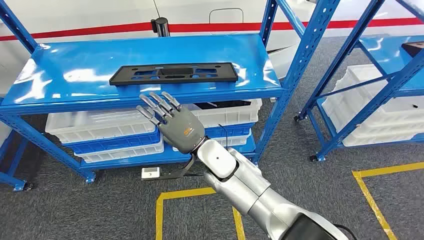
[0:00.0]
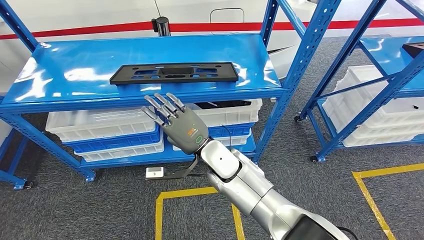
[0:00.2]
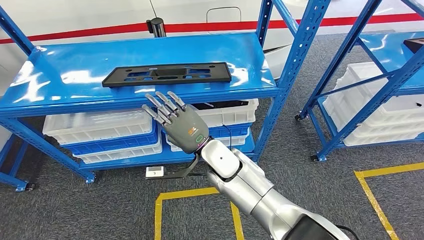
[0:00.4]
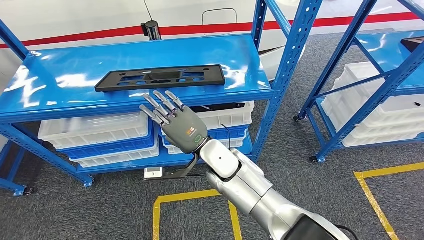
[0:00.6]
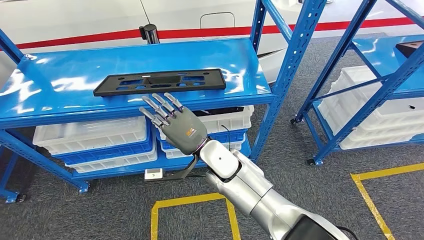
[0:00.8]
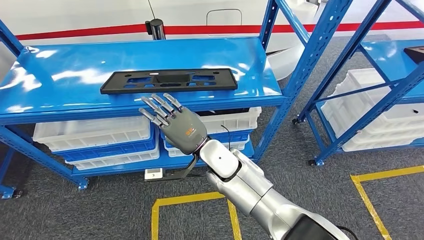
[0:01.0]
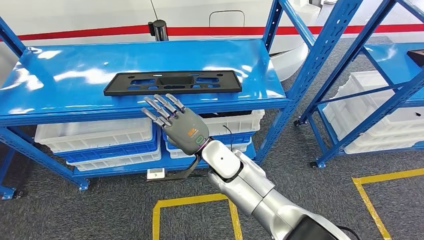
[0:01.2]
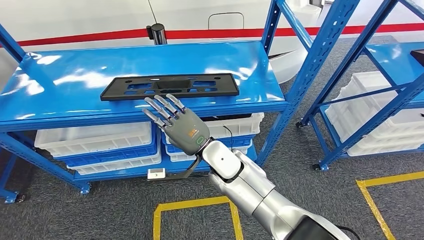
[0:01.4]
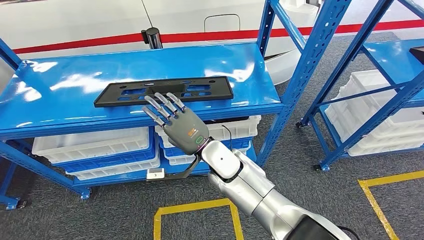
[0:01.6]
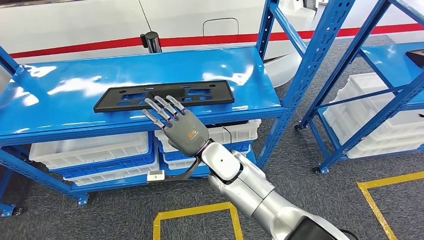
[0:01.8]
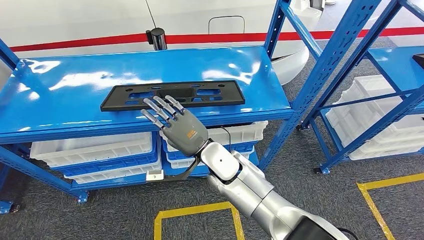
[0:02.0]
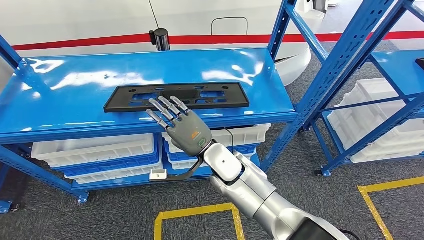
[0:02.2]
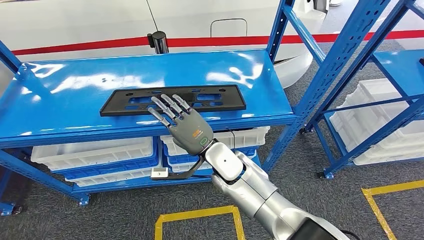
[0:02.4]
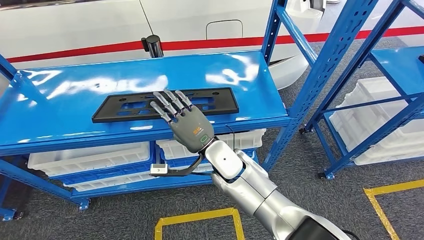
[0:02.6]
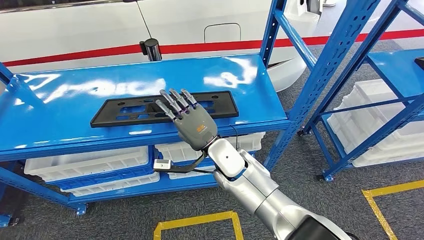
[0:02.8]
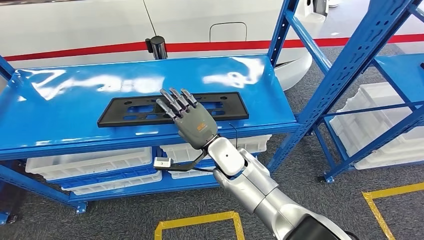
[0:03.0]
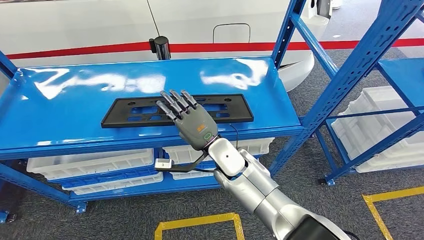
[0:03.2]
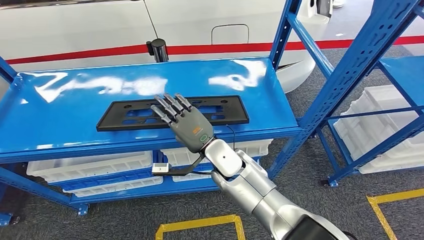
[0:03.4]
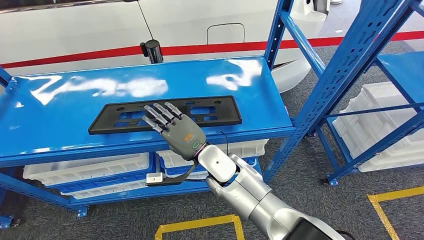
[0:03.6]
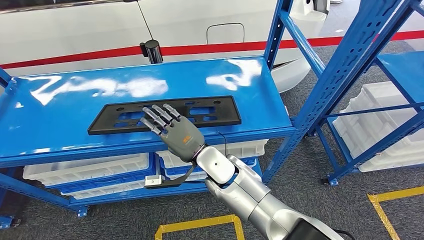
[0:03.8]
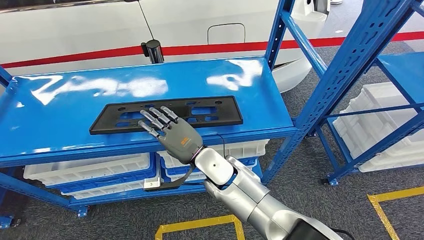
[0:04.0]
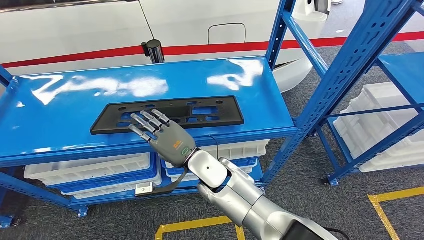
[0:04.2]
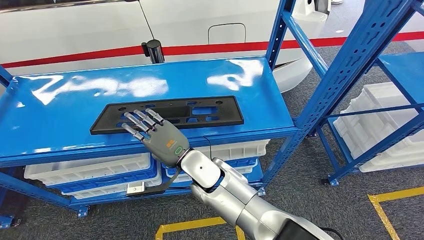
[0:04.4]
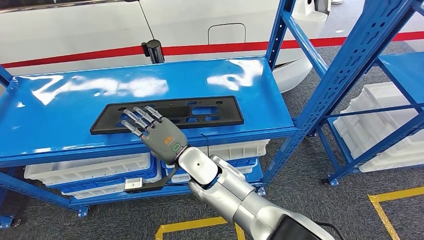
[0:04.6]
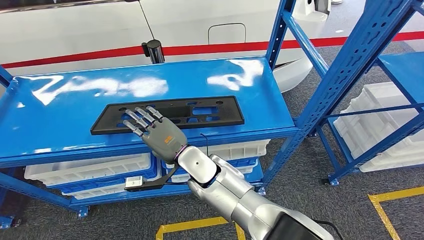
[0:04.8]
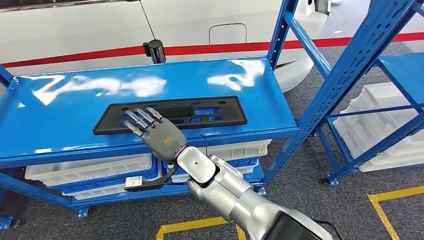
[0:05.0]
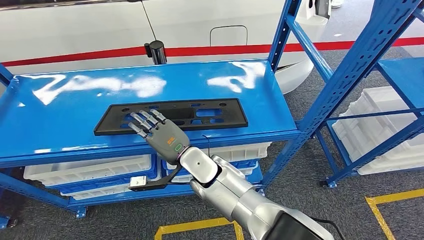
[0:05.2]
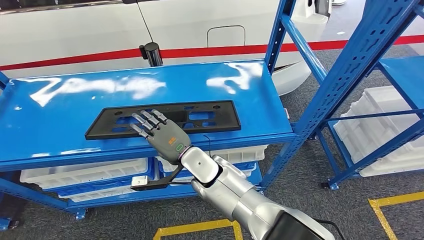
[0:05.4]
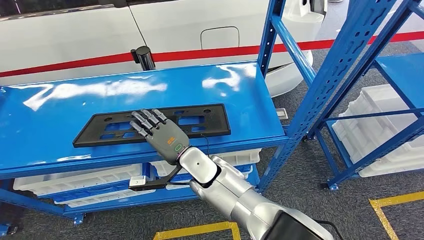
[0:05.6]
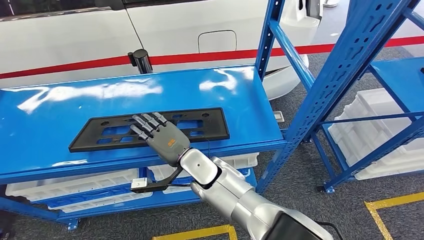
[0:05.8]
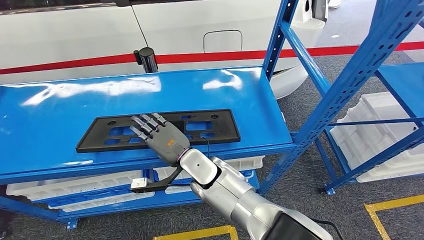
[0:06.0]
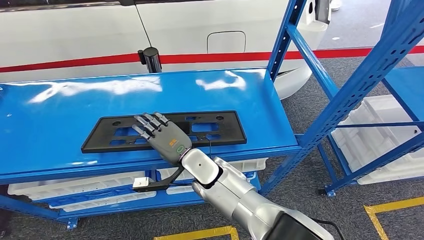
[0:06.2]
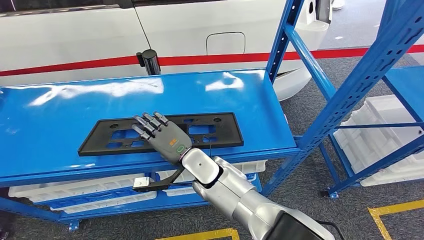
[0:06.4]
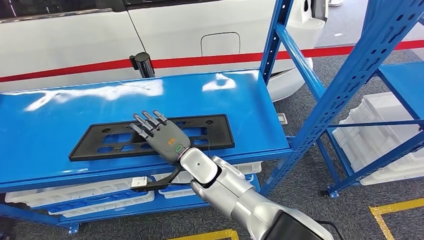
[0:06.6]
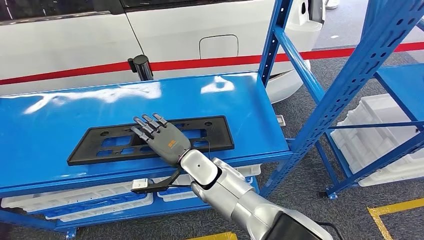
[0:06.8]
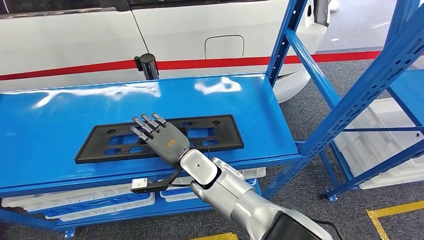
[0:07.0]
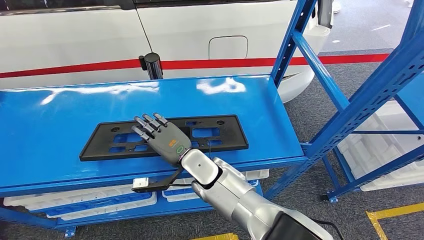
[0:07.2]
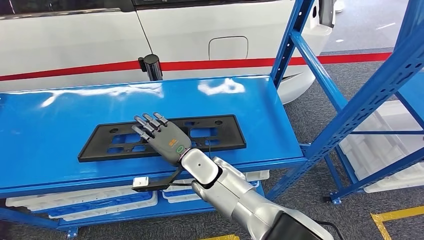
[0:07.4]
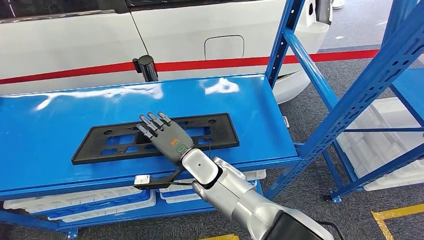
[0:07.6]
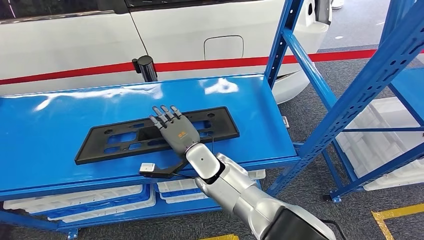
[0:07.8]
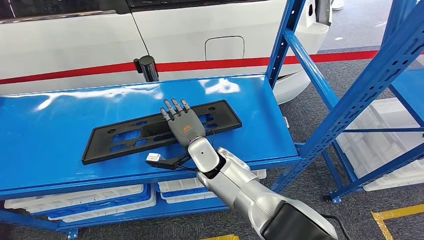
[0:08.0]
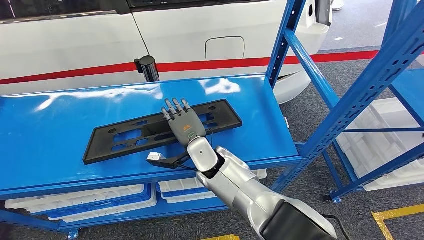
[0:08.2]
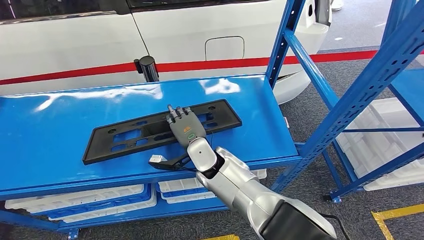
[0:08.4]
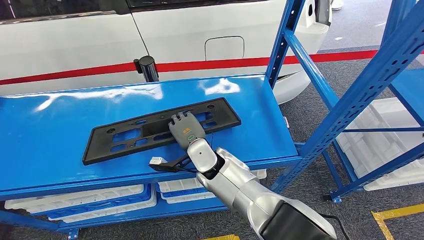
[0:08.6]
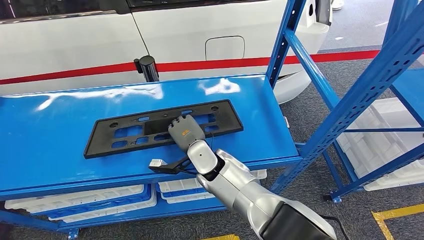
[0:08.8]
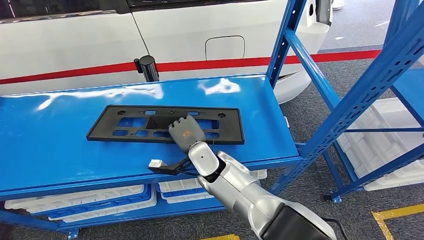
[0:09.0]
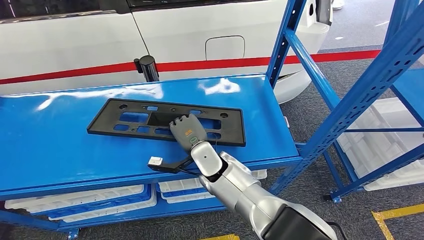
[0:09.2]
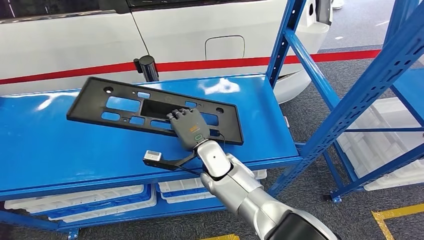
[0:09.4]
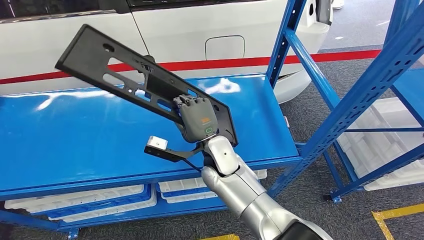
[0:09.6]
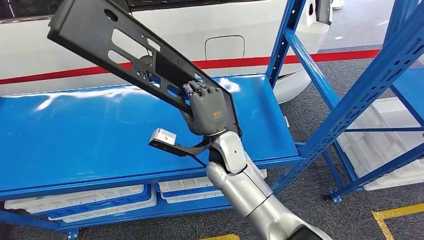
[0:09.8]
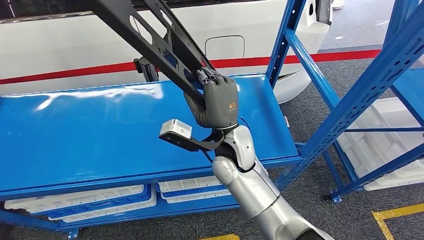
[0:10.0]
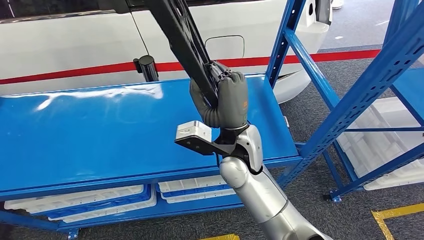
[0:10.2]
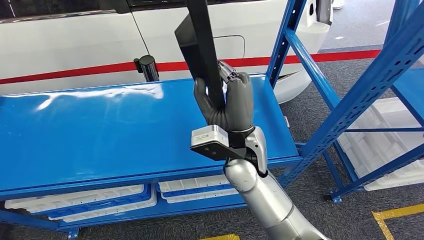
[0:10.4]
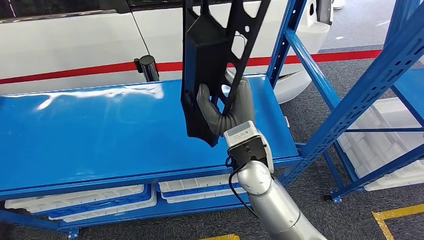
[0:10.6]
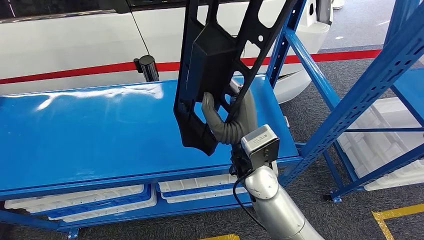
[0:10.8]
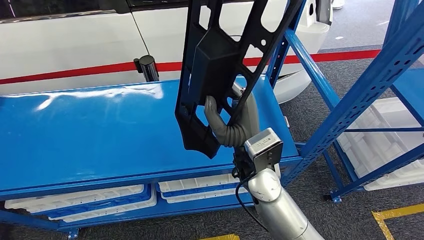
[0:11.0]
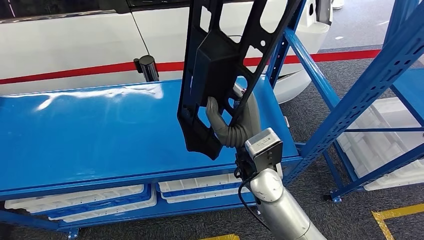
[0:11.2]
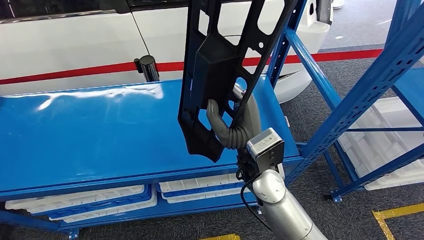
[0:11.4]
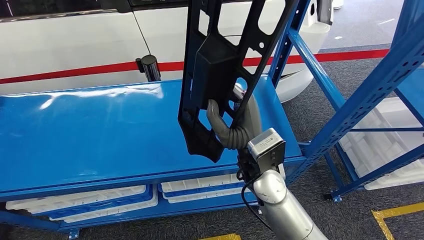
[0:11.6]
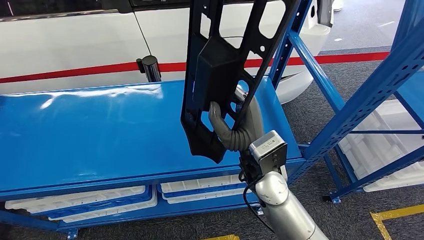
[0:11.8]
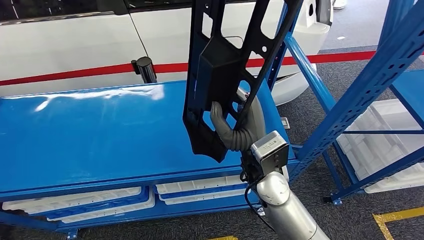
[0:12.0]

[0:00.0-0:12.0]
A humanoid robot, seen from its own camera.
Step, 0:00.0 to 0:09.6: Pick up the large material from the shelf.
0:09.0 to 0:10.4: The right hand moves upward and to the right, some 15 cm.

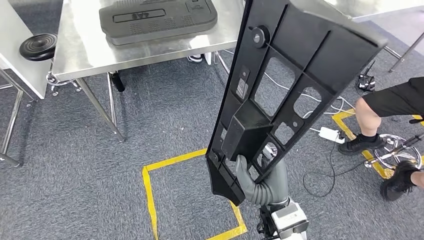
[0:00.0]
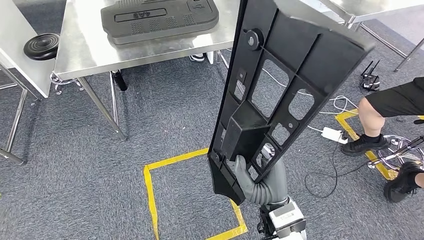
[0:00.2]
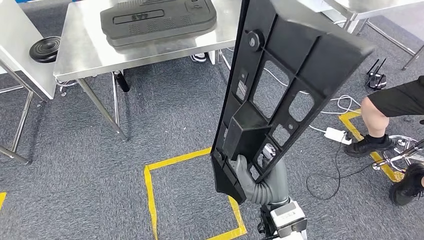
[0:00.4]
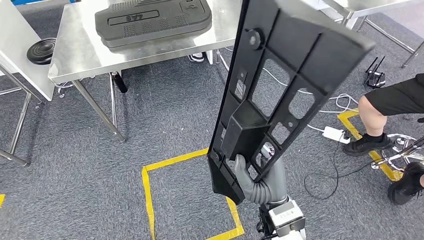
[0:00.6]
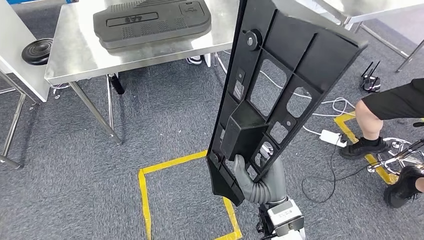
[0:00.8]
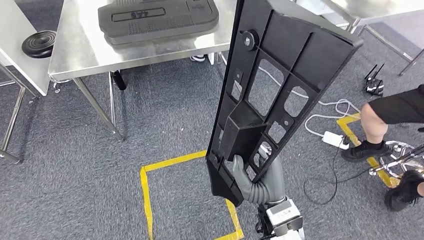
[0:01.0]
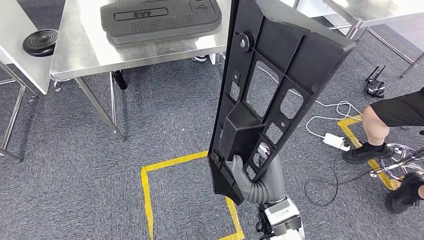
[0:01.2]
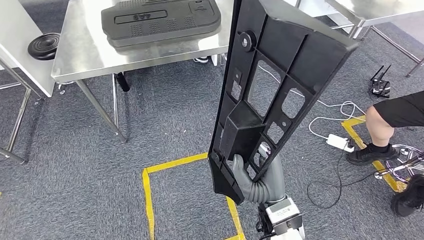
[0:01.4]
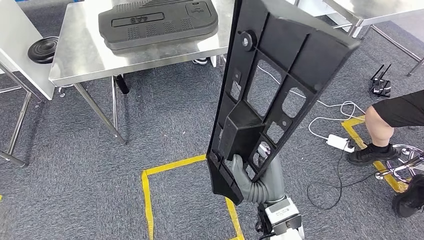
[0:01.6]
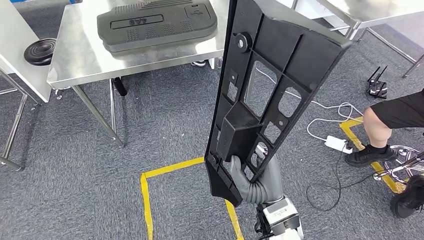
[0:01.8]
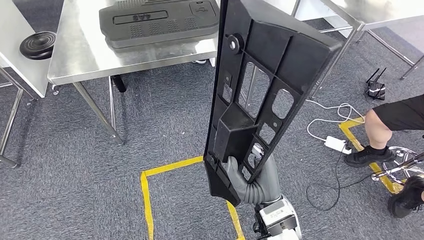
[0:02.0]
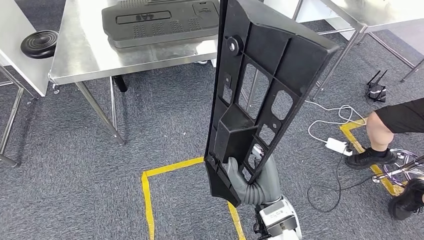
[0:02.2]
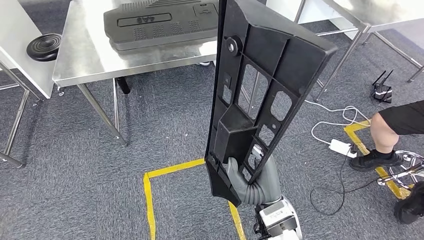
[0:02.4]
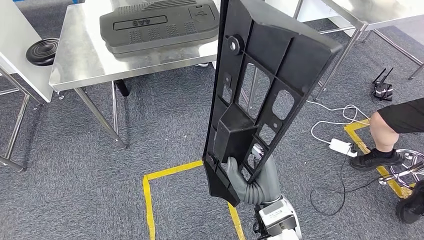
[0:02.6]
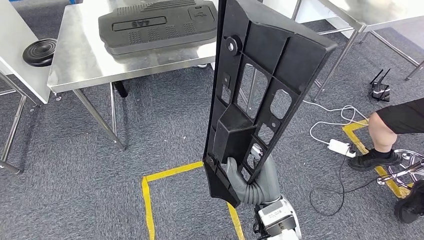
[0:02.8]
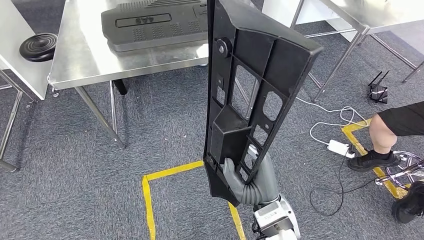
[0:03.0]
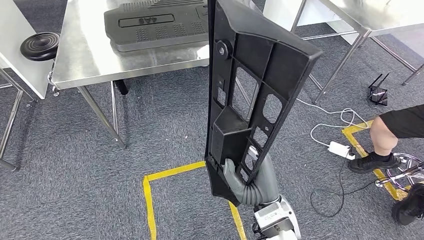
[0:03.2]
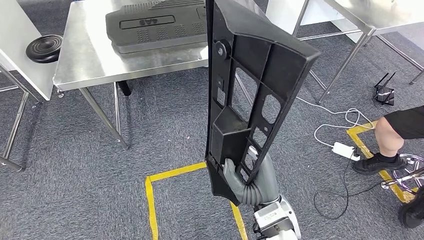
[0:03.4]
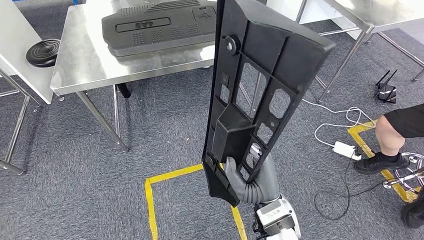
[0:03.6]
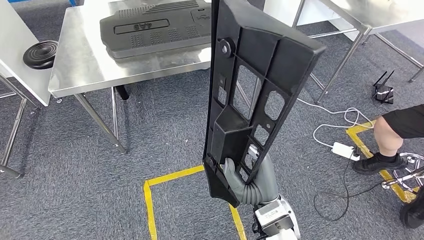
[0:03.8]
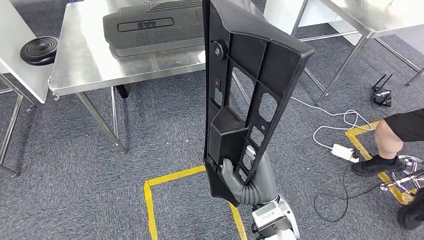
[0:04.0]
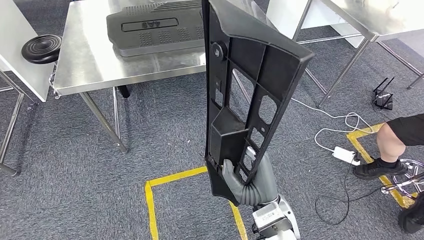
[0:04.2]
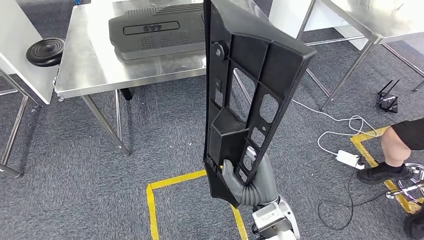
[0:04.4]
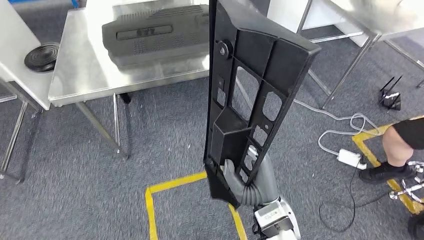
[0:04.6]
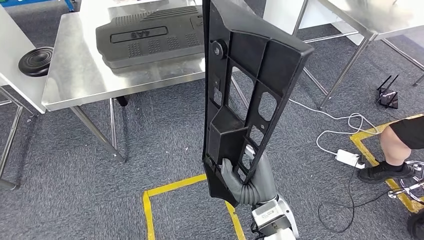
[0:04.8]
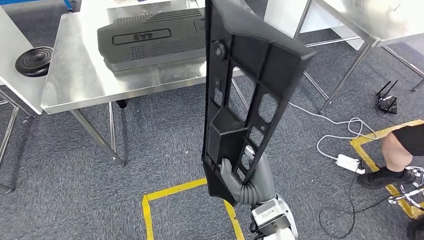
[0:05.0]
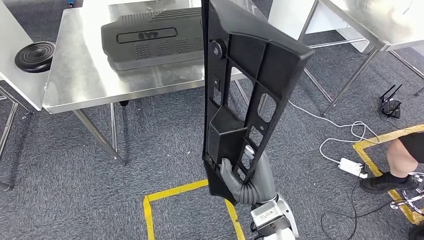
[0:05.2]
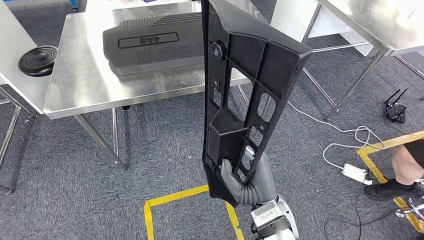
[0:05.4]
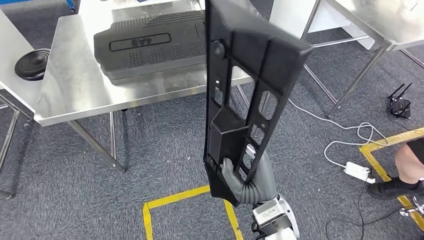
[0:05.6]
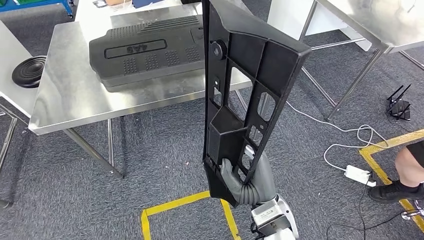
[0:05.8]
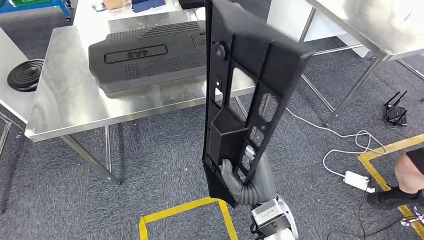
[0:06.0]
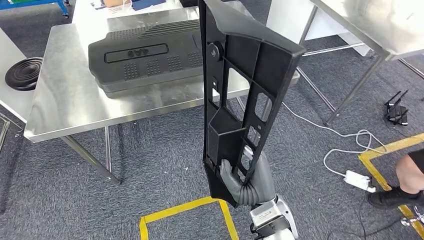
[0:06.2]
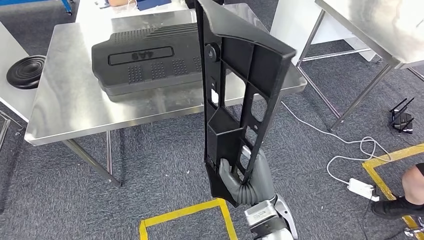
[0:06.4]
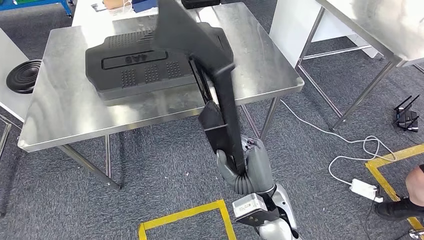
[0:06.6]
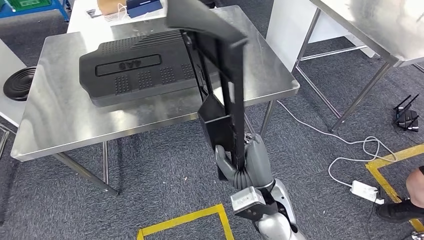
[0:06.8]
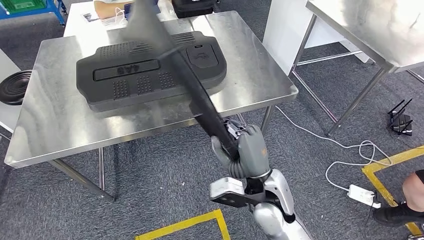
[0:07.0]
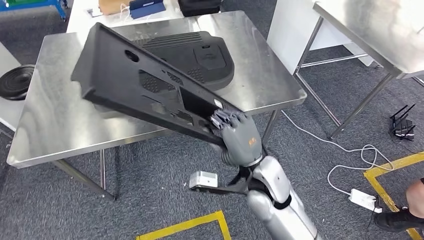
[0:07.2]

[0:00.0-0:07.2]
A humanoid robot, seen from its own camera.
Step, 0:00.0 to 0:03.0: Move the large material to the front of the workbench.
